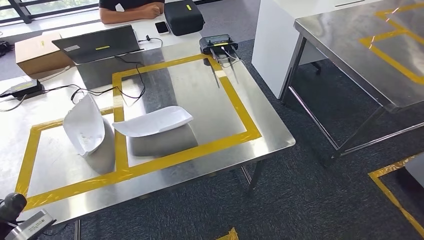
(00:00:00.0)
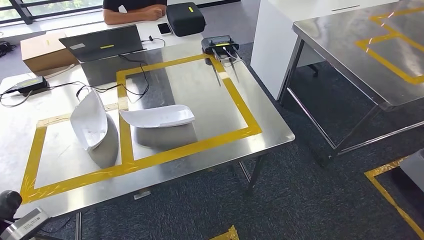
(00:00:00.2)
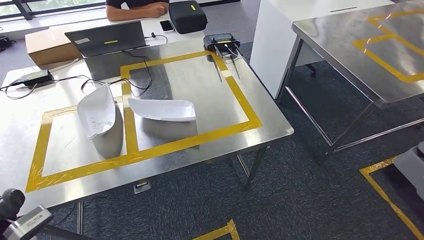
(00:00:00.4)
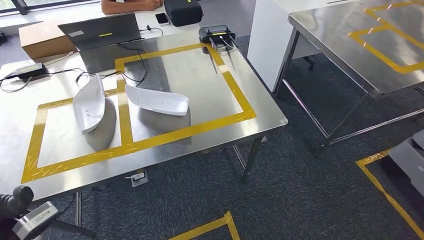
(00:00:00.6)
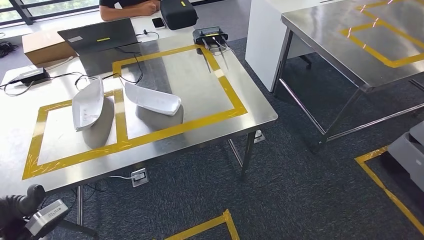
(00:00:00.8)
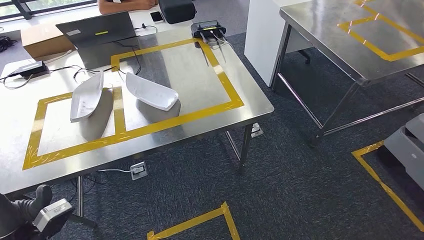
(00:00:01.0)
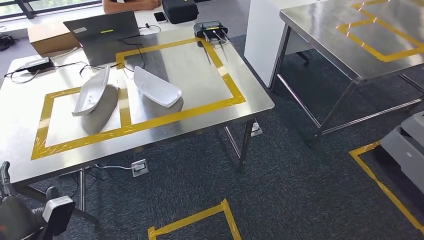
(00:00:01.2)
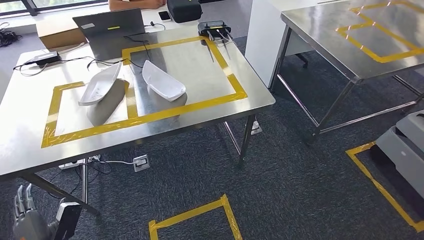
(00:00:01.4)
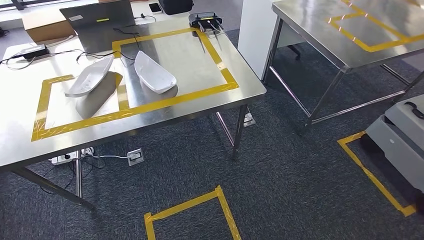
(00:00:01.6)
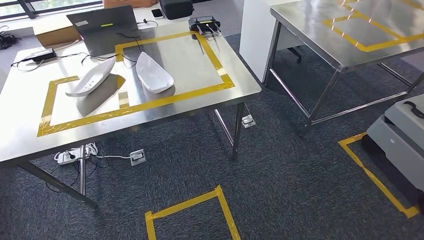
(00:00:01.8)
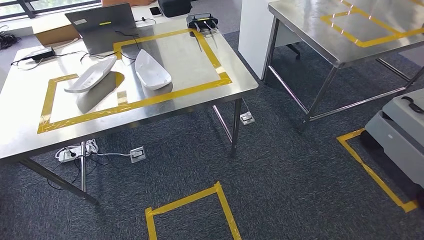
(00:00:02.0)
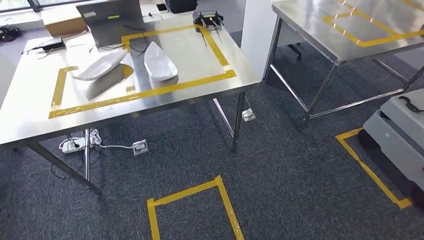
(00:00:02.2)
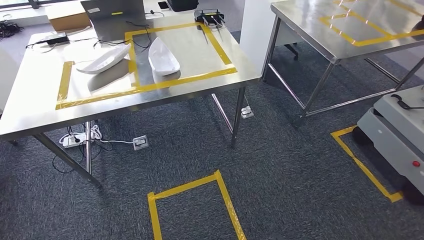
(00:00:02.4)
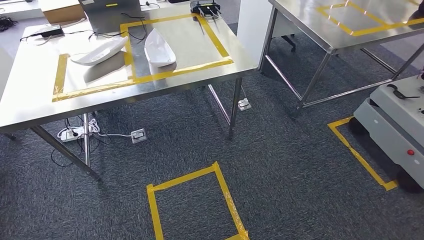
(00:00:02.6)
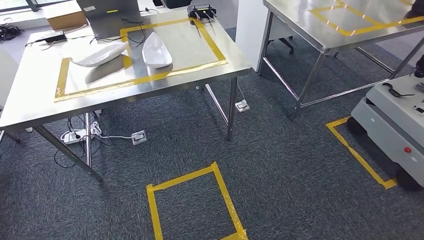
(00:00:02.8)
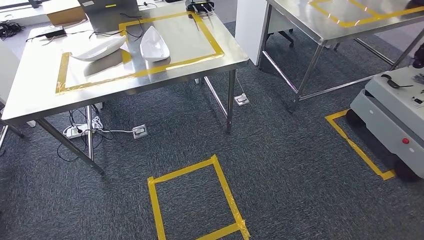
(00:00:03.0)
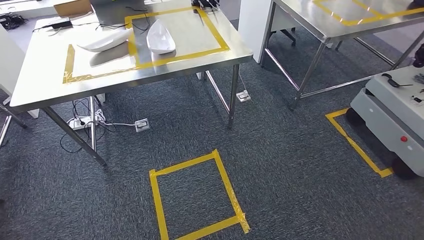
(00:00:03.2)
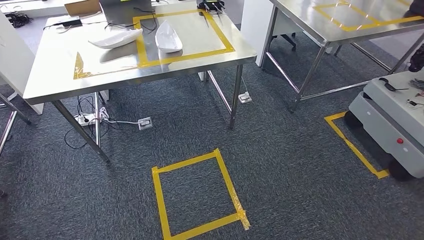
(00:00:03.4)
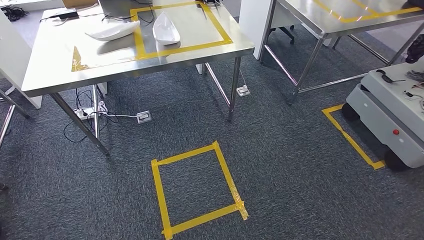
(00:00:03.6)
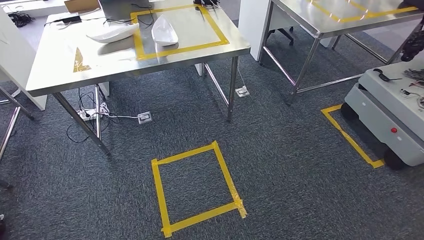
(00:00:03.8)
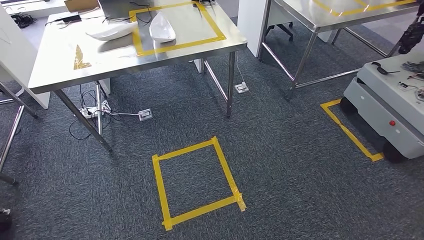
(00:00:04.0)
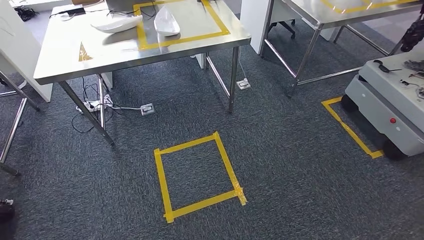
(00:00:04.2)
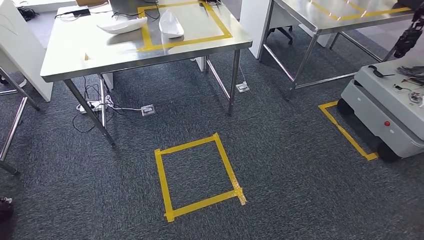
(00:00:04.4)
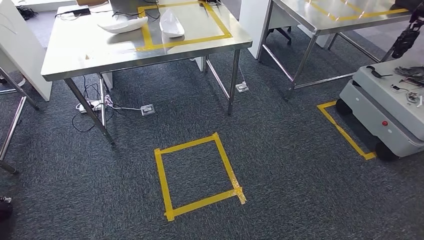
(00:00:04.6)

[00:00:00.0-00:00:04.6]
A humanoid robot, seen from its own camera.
Step, 00:00:00.2 to 00:00:04.6: Move to the initial position of the workbench.

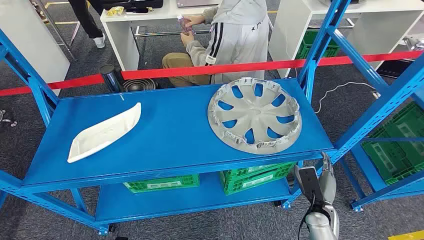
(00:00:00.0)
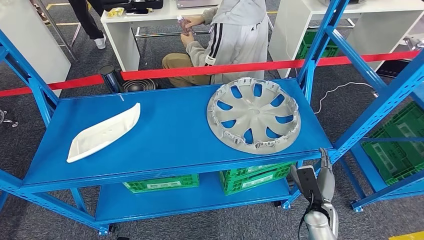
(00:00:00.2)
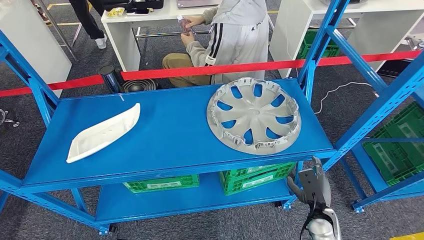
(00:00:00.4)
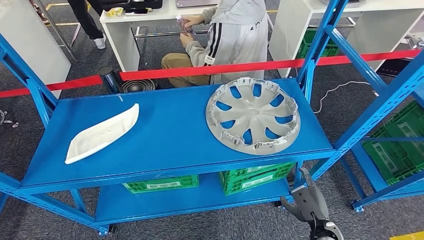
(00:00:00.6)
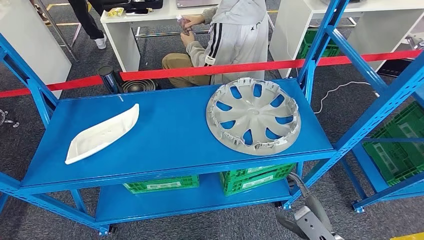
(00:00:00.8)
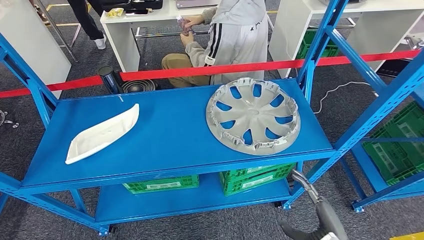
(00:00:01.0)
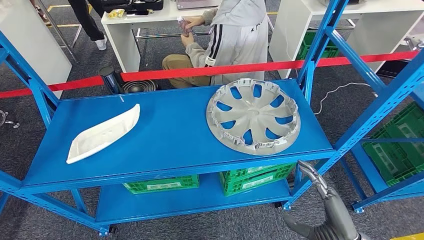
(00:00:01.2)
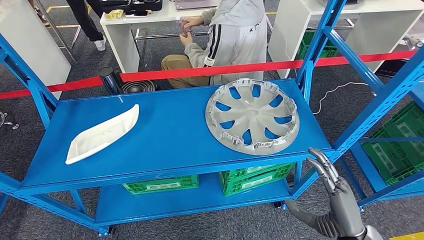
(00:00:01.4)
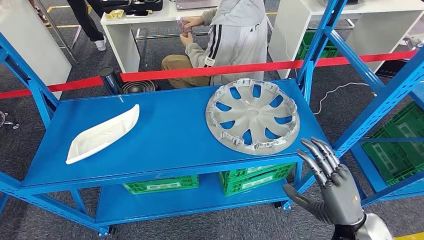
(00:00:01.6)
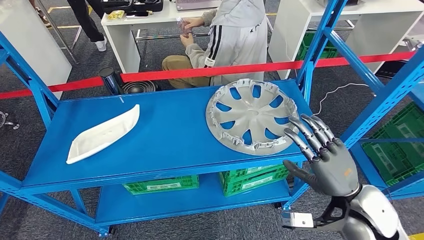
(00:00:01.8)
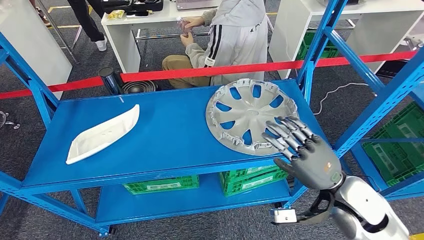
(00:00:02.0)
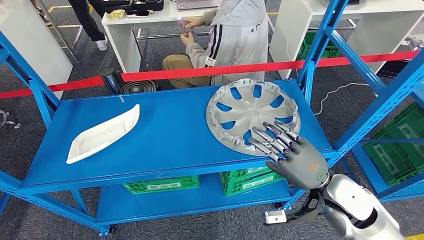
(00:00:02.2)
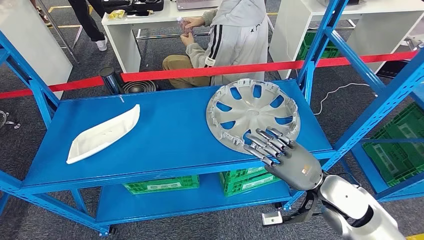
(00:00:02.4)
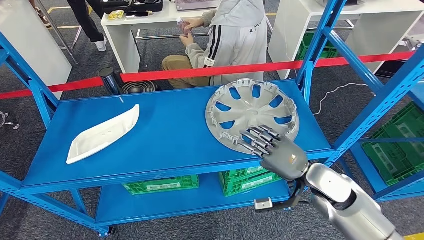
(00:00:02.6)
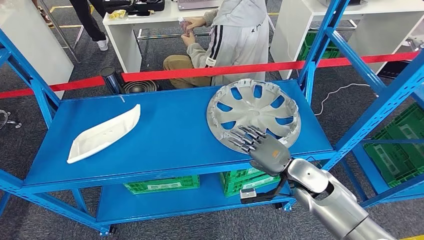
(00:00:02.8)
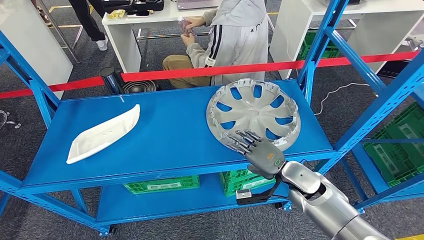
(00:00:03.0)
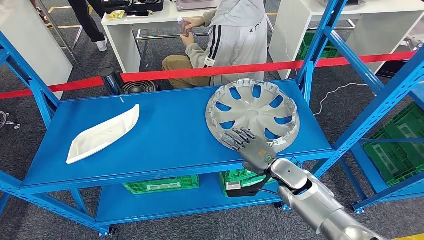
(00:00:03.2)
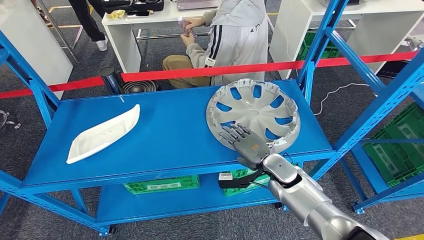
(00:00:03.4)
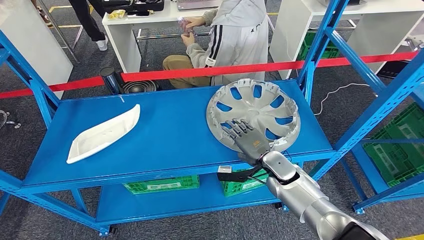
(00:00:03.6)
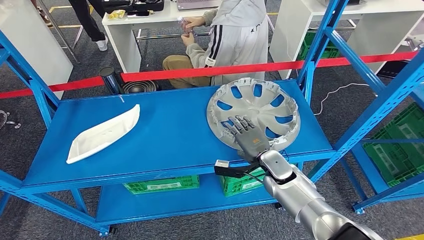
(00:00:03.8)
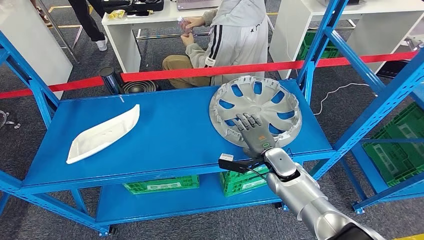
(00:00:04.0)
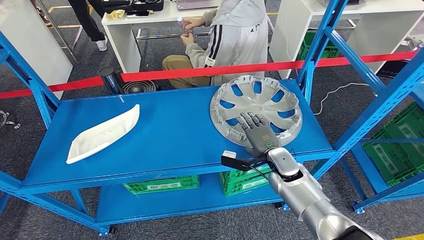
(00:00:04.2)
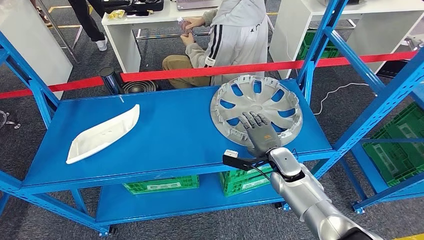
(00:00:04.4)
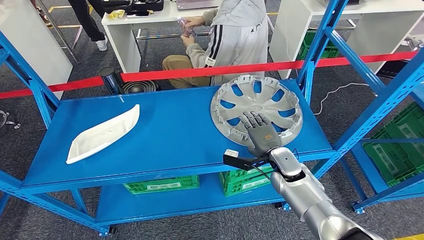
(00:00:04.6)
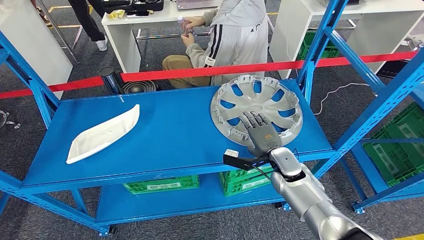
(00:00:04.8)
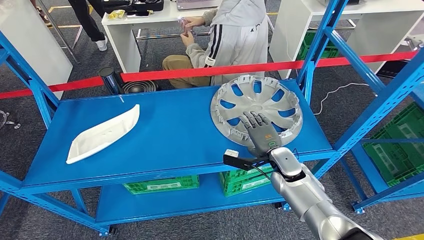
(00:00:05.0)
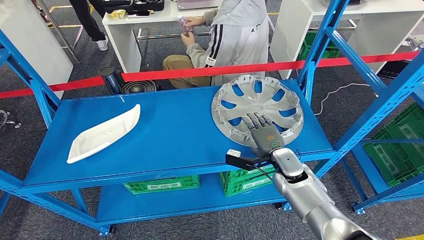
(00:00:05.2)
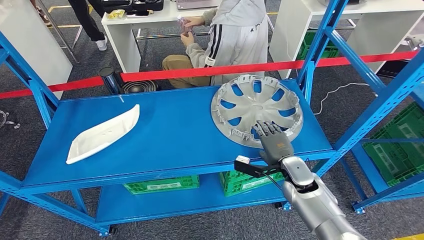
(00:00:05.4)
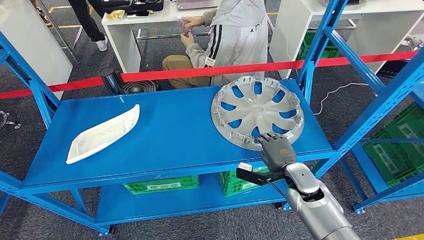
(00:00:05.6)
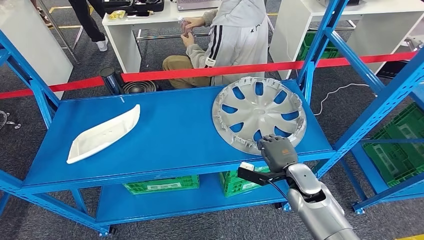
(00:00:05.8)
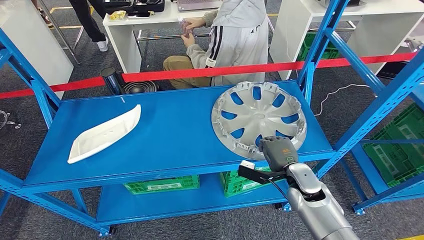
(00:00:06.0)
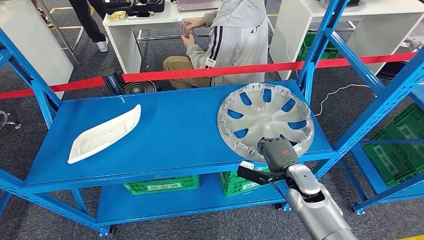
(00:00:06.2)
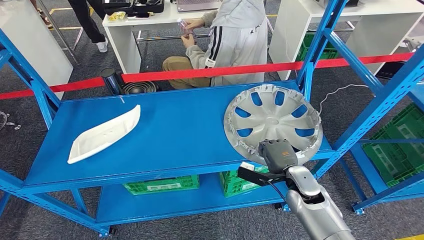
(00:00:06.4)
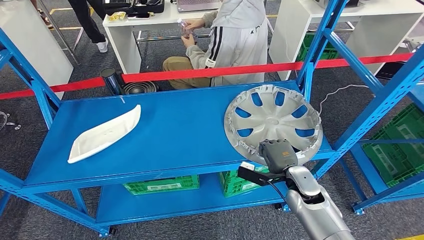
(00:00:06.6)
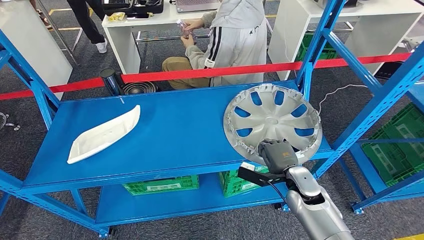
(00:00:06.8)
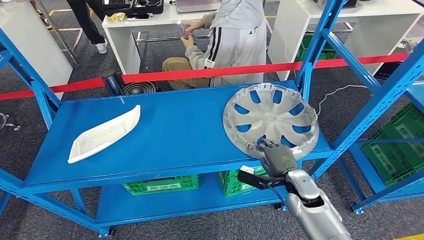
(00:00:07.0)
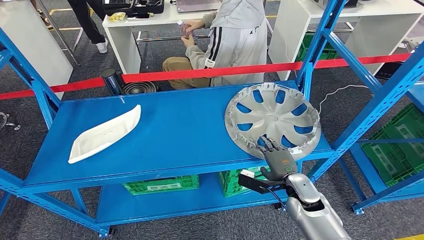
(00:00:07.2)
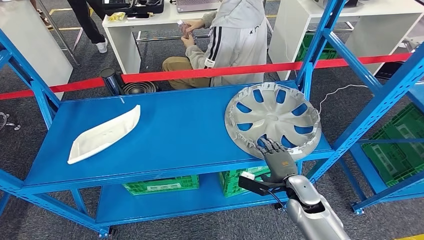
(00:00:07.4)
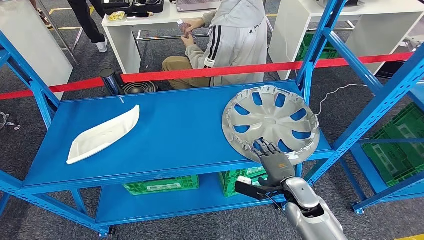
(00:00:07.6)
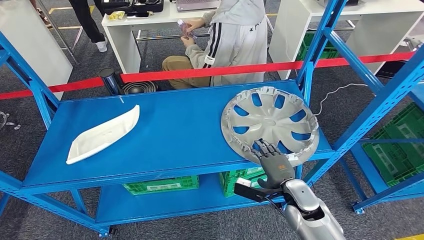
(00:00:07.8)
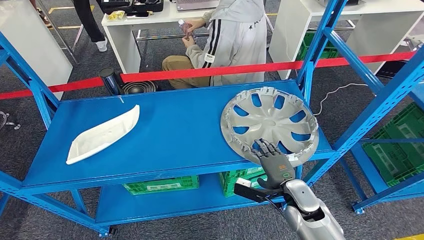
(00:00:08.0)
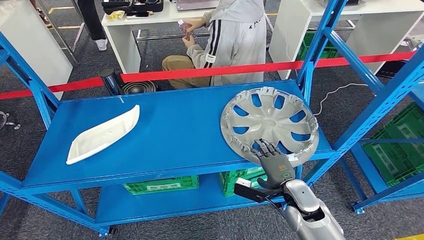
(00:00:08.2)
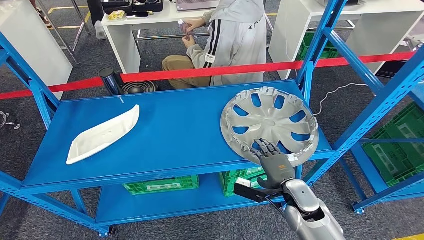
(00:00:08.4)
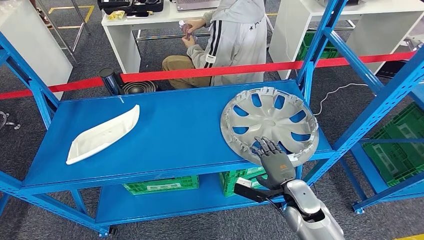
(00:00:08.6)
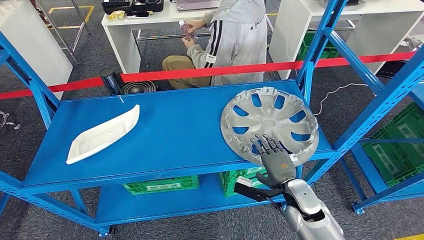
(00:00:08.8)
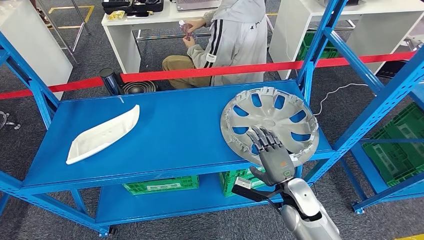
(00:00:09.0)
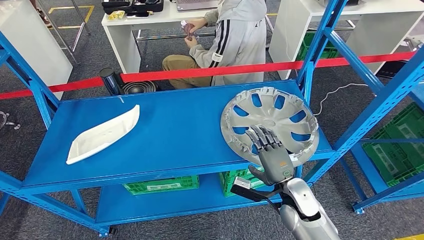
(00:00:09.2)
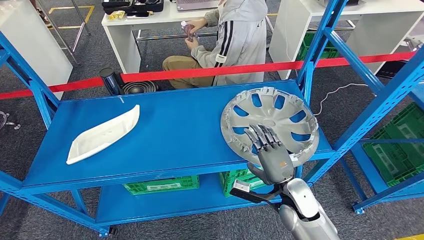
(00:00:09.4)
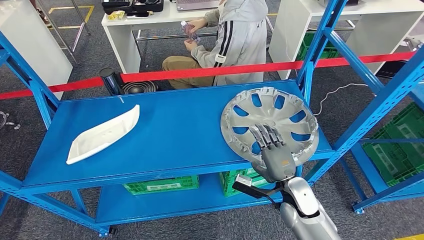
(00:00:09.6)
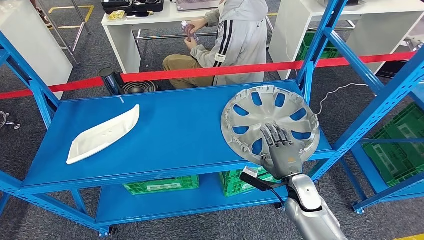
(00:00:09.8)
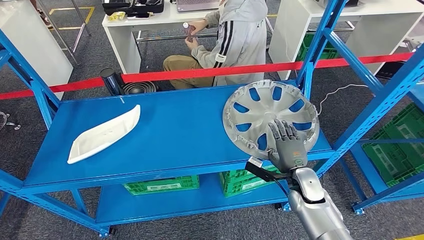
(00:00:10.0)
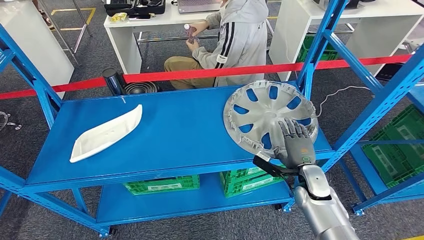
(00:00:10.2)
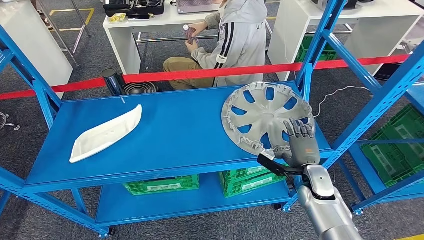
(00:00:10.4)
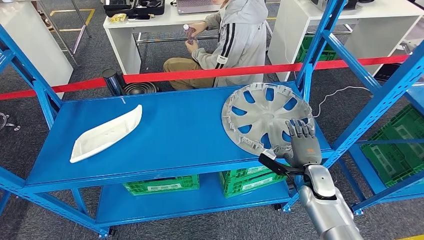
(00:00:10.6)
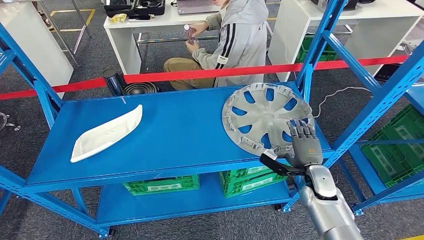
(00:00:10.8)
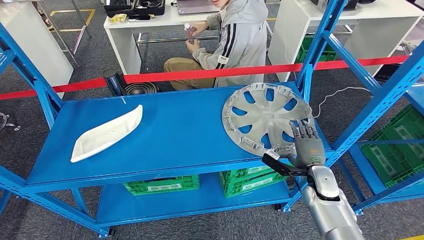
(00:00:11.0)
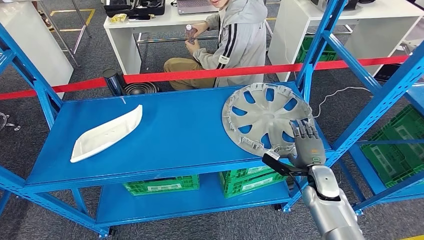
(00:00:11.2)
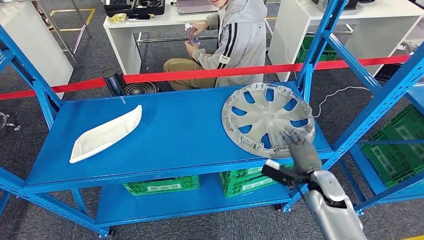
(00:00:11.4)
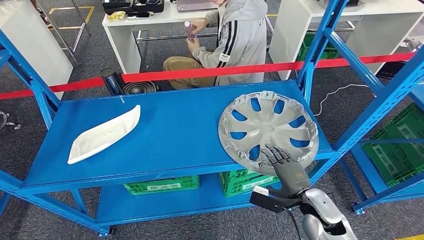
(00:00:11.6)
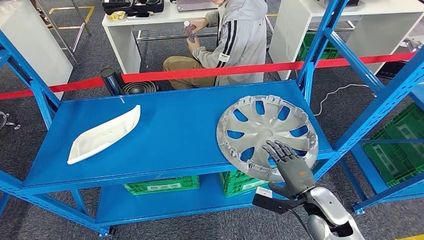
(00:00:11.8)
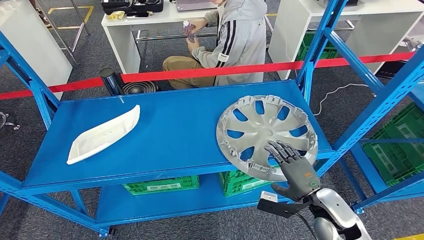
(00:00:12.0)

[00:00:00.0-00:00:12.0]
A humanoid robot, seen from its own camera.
00:00:01.6 to 00:00:03.0: The right hand heads forward, to the left and downward, covering about 20 cm.
00:00:03.0 to 00:00:04.4: The right hand changes place by about 5 cm.
00:00:04.4 to 00:00:06.0: The right hand is displaced backward by approximately 5 cm.
00:00:06.0 to 00:00:07.6: The hands move only a little.
00:00:10.4 to 00:00:12.0: The right hand is displaced backward and upward by approximately 10 cm.
